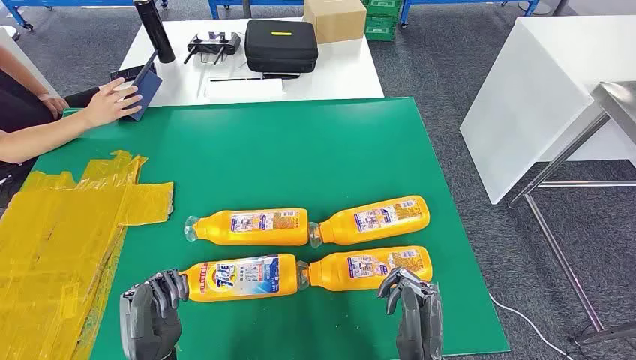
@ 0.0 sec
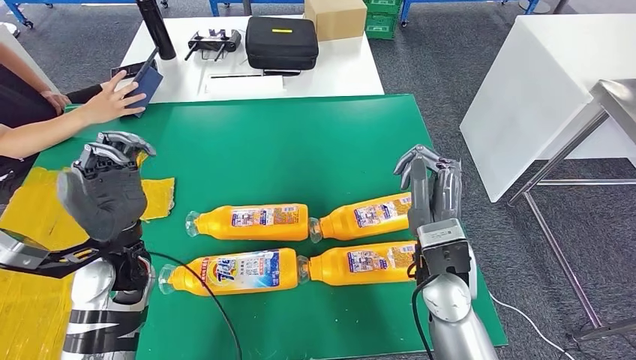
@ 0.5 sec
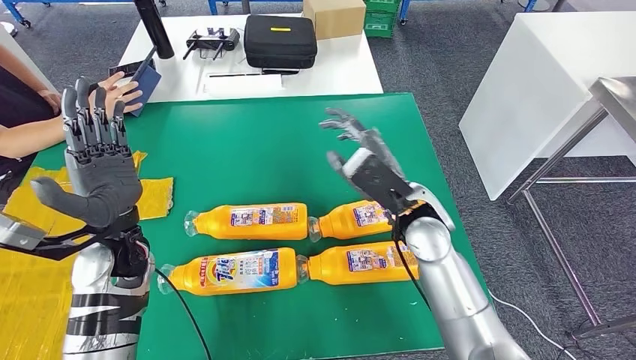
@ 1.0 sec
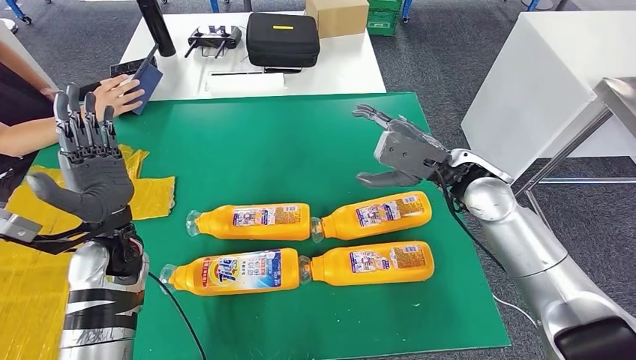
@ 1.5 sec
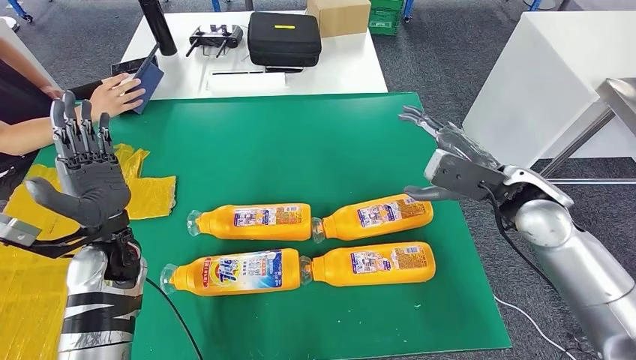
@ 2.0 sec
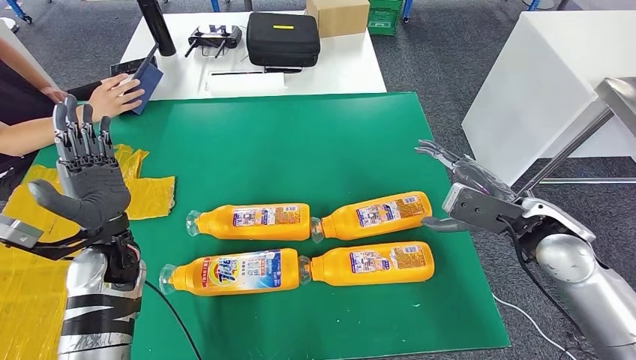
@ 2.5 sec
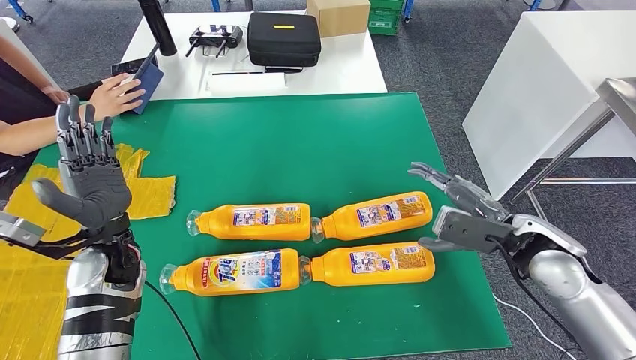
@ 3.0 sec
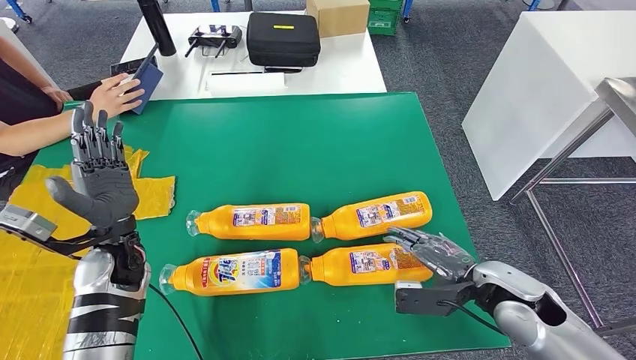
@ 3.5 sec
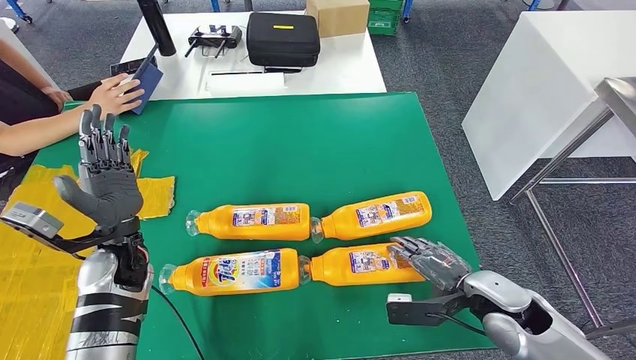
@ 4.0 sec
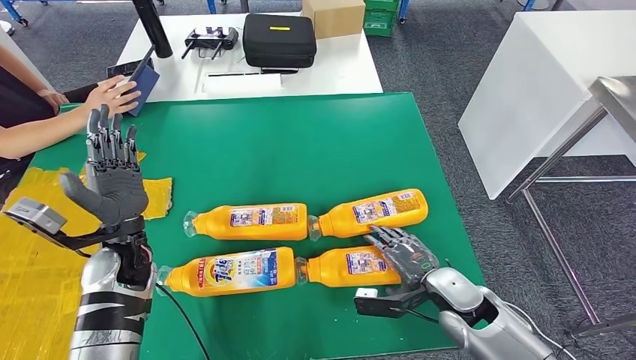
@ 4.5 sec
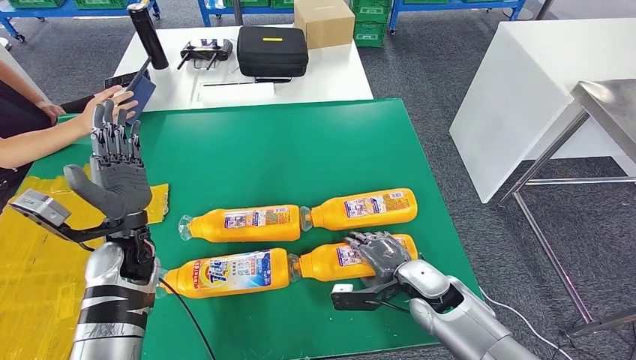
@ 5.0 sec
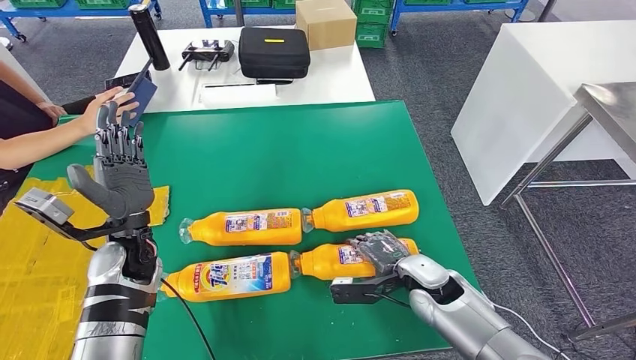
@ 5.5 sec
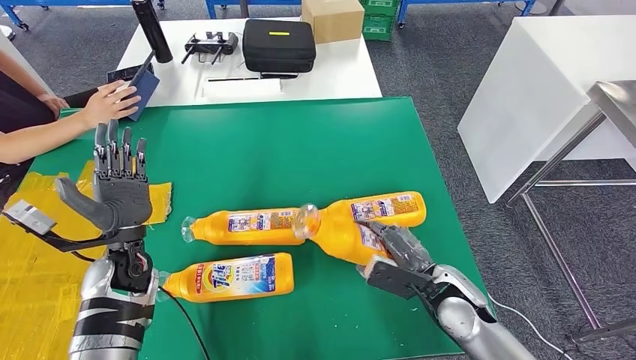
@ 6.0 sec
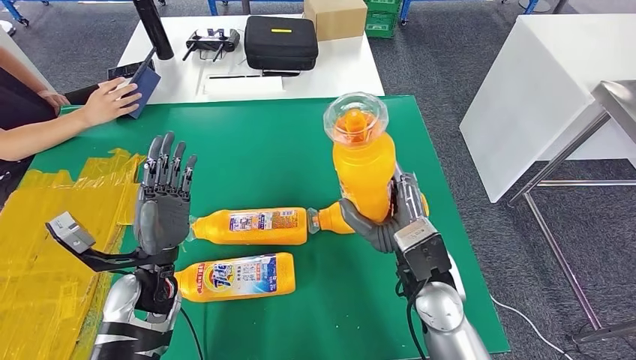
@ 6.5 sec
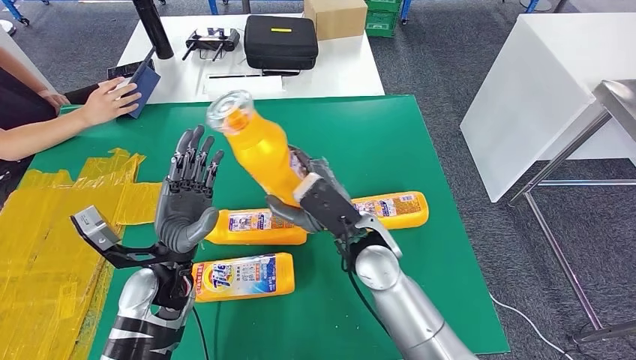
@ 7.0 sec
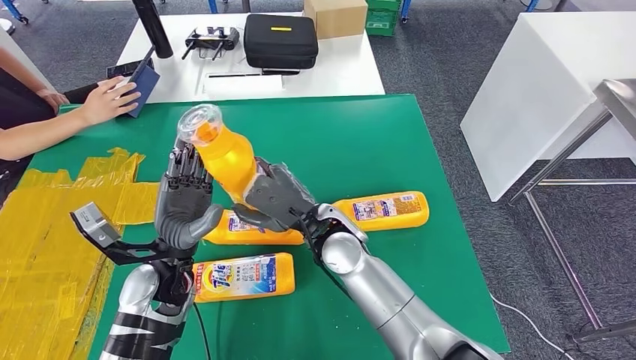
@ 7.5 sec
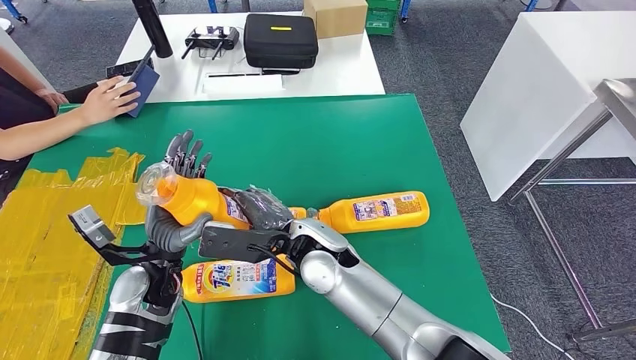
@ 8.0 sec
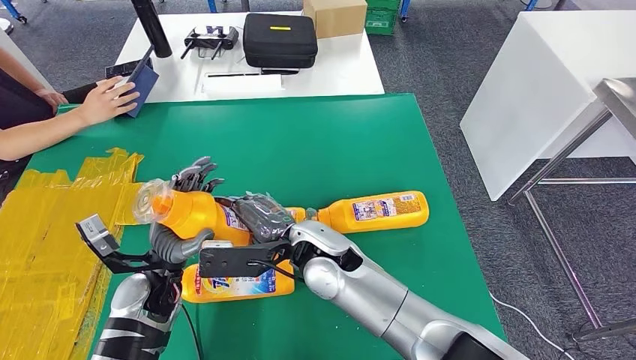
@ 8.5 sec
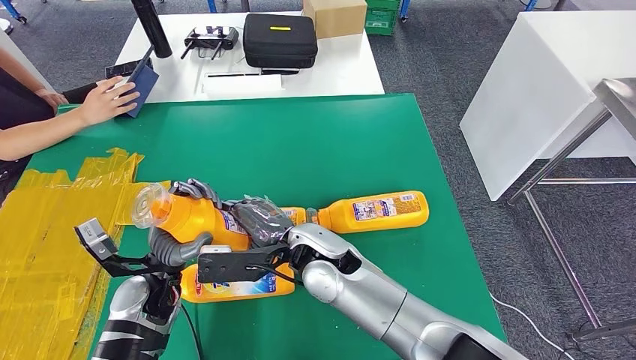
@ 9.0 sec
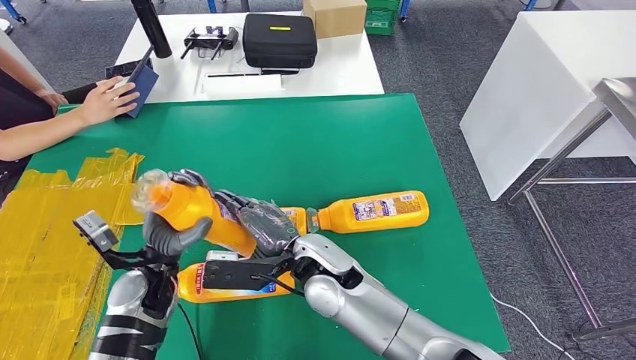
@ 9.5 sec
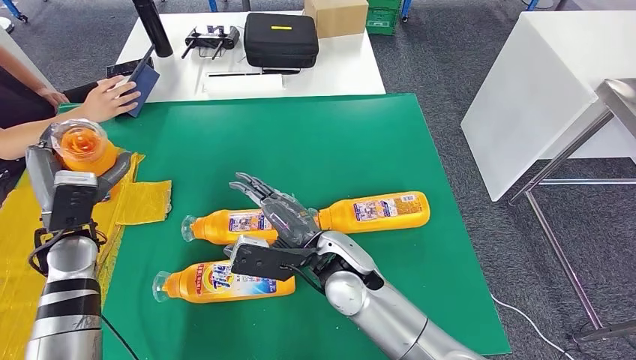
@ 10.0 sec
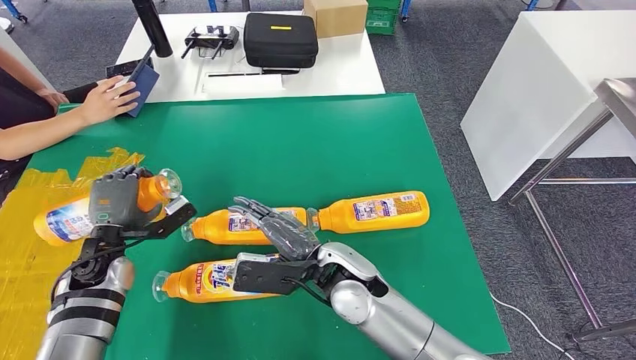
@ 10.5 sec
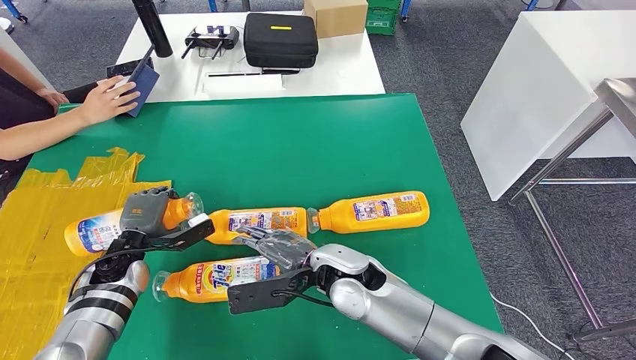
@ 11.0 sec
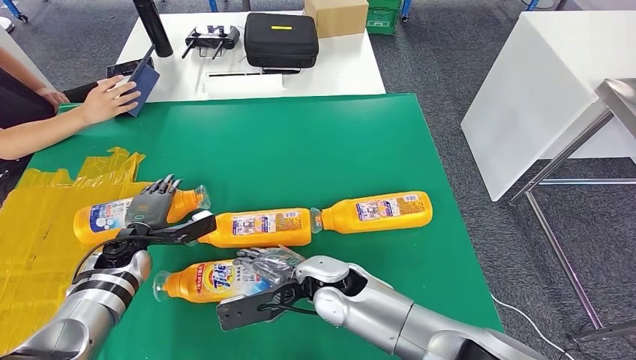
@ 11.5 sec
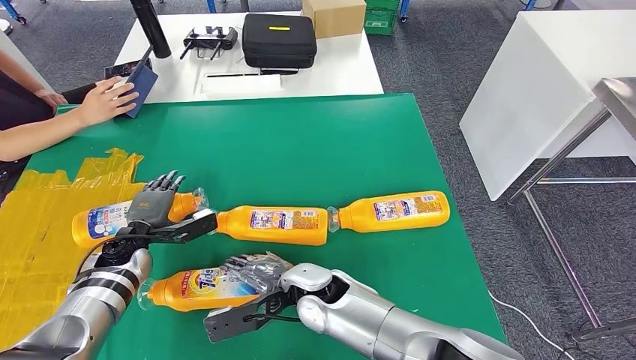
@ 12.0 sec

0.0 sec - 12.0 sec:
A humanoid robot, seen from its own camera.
Step, 0.0 sec - 8.5 sec: Take the fast-moving consumer goods bottle from the table.
Step, 9.0 sec - 12.0 sec: Flip the fast-moving consumer goods bottle to the front side.
2.0 sec - 4.0 sec: The right hand is displaced downward and backward by roughly 20 cm.
8.0 sec - 10.0 sec: The left hand goes about 15 cm to the left.

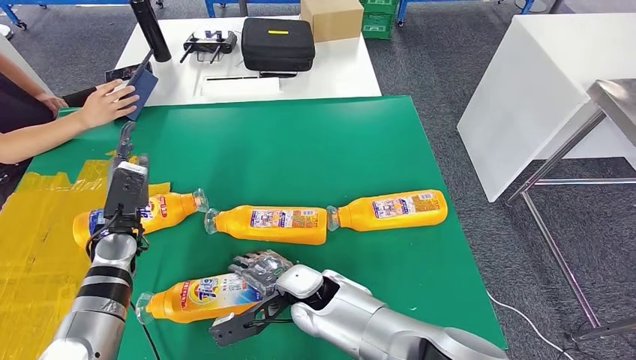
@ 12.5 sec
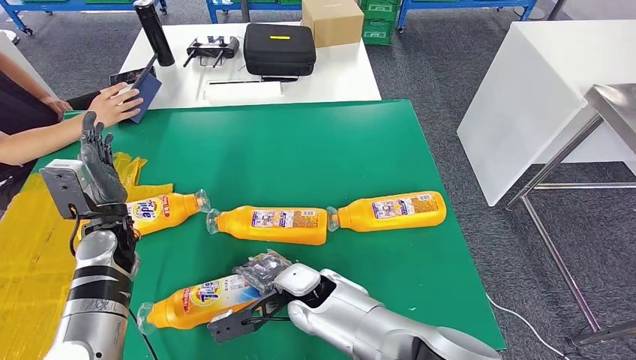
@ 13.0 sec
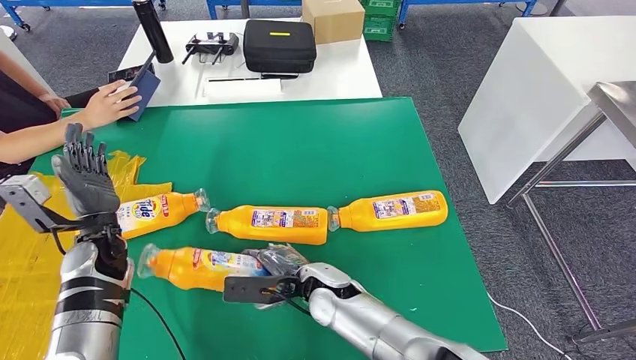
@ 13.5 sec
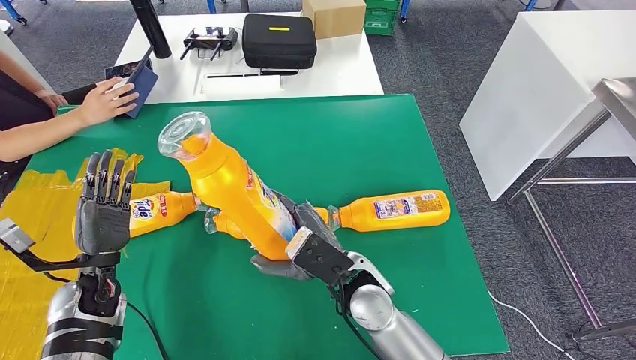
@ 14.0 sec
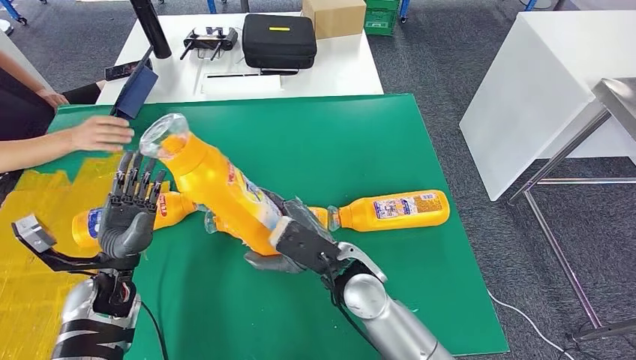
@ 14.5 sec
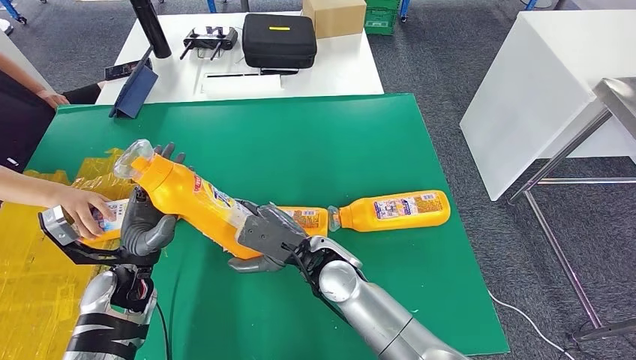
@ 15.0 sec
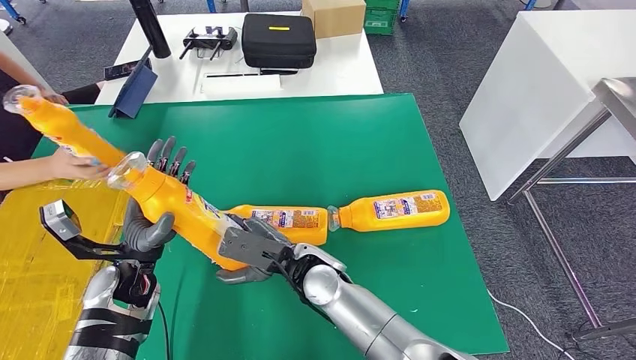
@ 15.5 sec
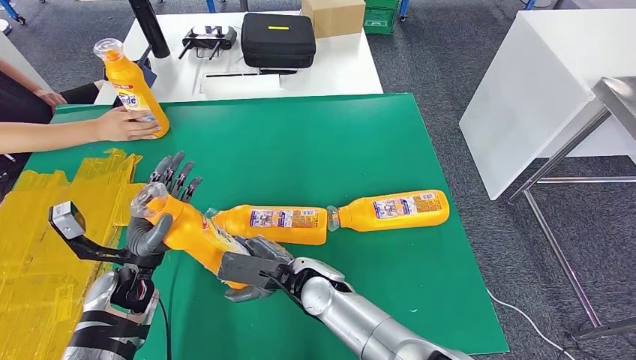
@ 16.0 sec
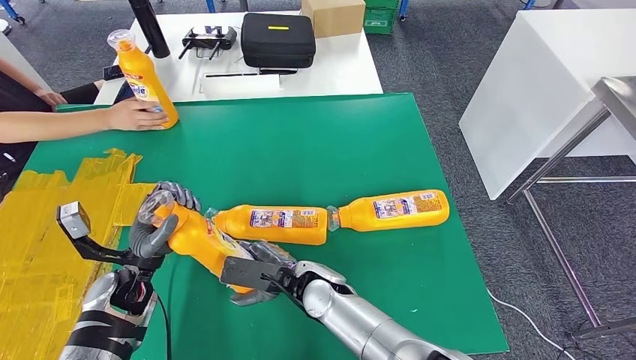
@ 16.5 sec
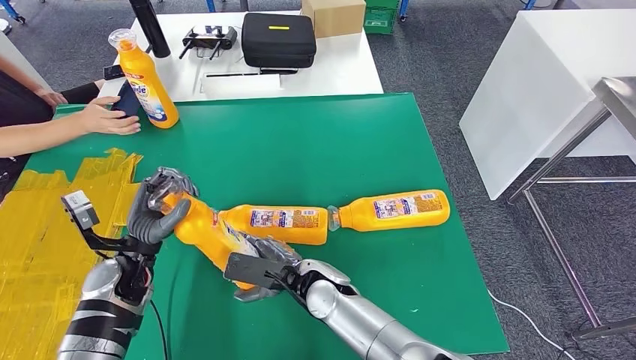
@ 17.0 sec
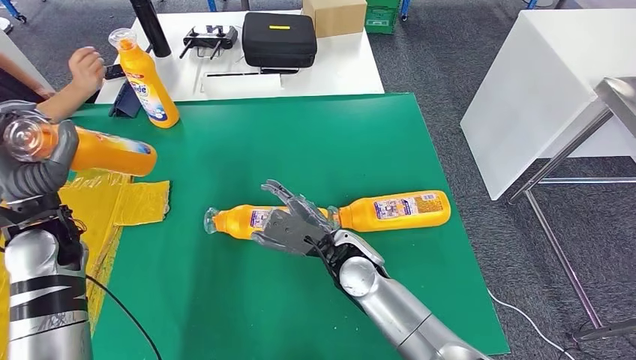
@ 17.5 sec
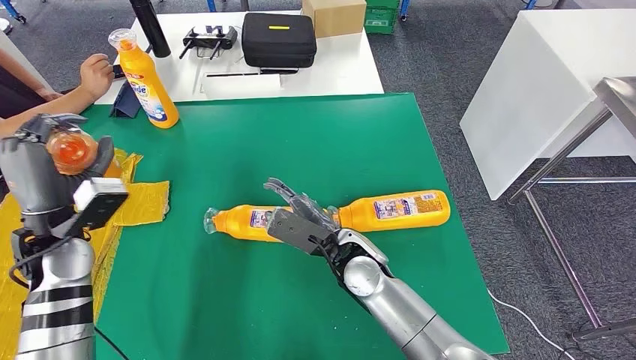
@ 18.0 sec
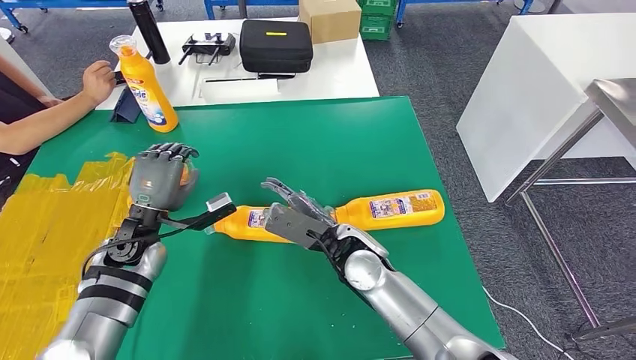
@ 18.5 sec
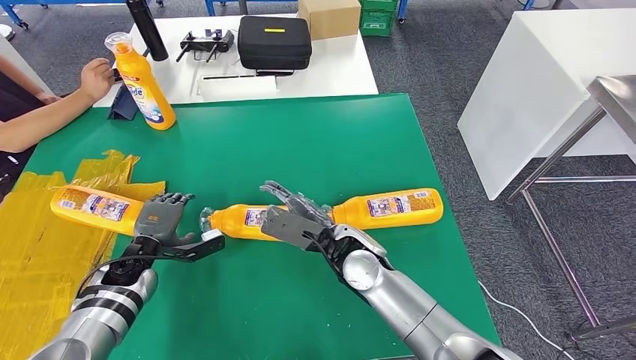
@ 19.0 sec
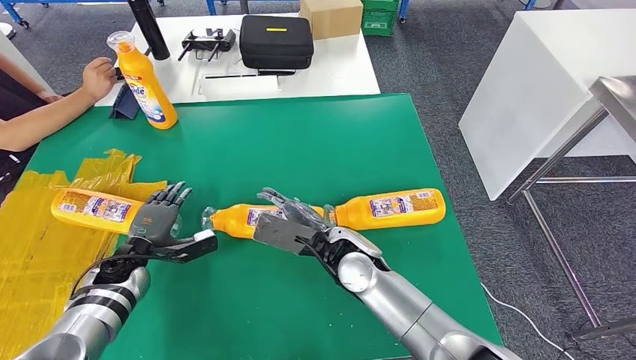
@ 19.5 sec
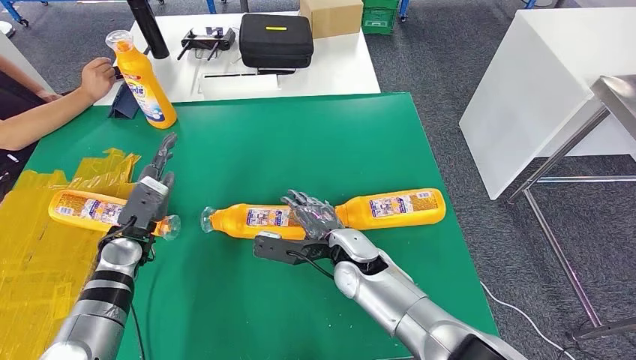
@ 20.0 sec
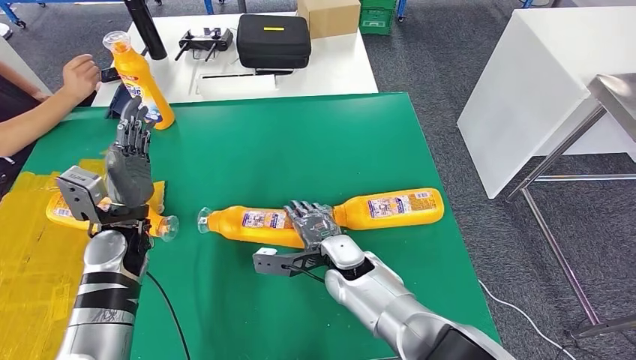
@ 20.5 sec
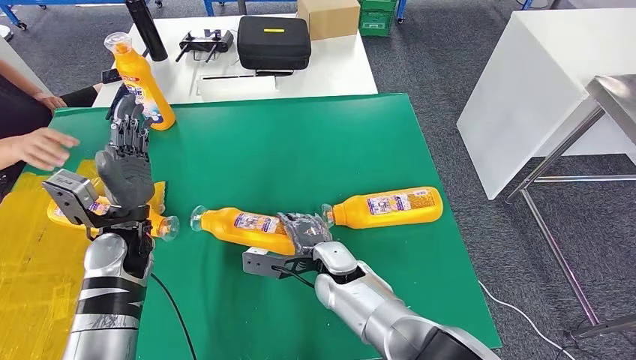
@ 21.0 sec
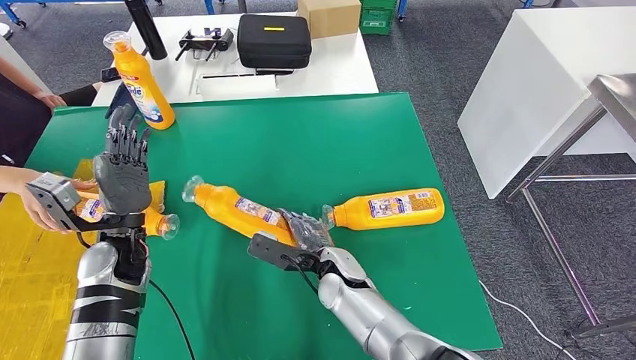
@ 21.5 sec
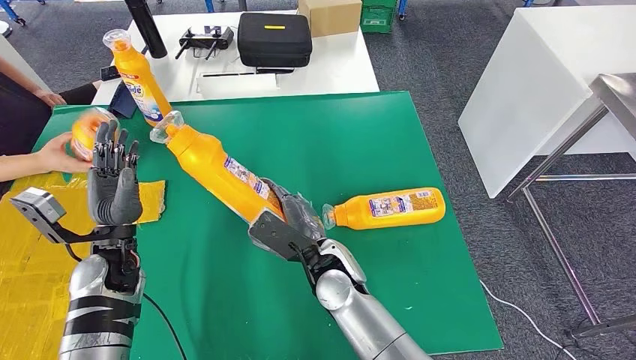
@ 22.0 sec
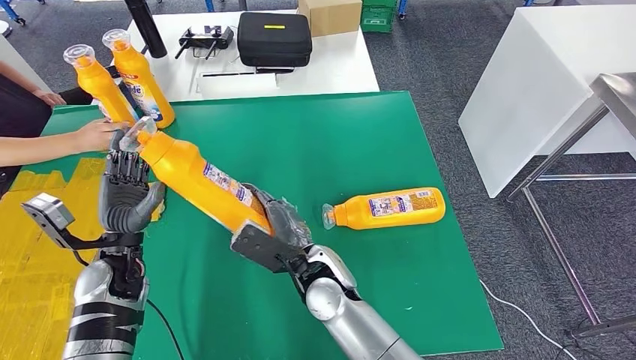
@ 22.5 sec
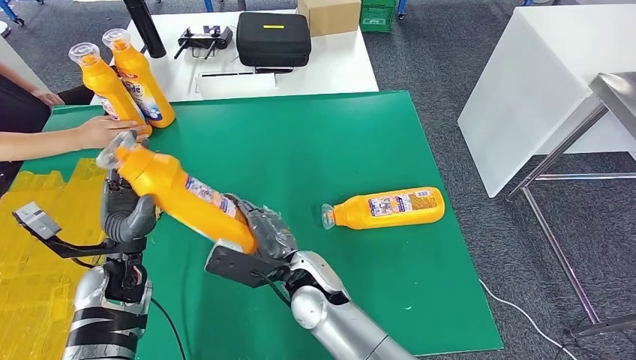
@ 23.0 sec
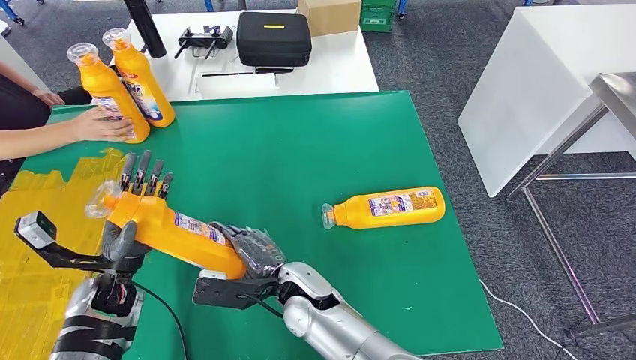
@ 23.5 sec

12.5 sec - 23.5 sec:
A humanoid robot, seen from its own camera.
Step, 12.5 sec - 15.5 sec: Pick up the fast-moving consumer goods bottle from the table.
Step, 16.0 sec - 19.0 sec: Flip the fast-moving consumer goods bottle to the front side.
Step, 19.5 sec - 22.0 sec: Pick up the fast-moving consumer goods bottle from the table.
